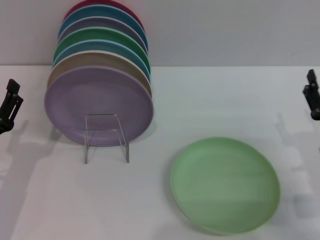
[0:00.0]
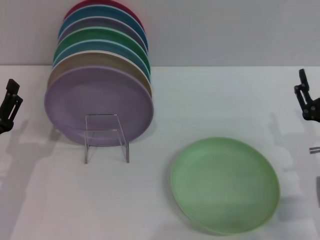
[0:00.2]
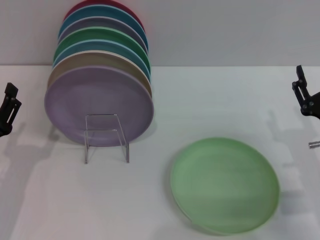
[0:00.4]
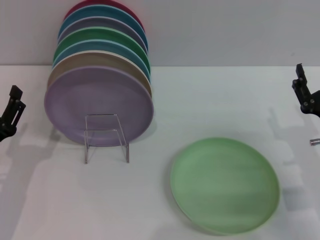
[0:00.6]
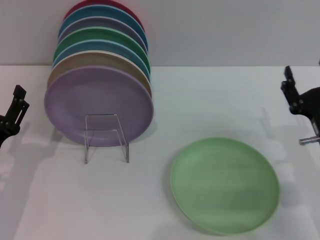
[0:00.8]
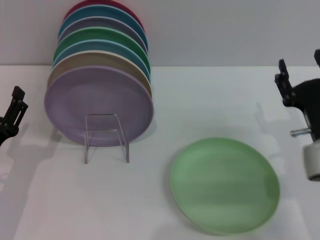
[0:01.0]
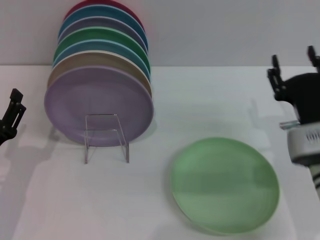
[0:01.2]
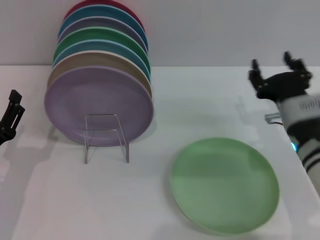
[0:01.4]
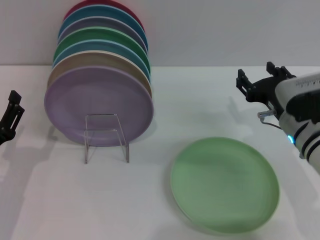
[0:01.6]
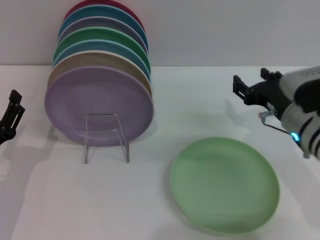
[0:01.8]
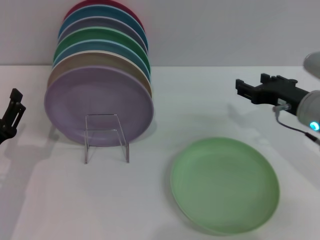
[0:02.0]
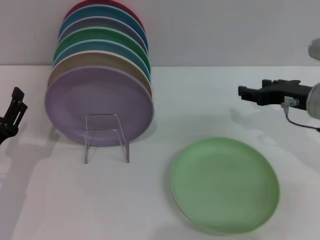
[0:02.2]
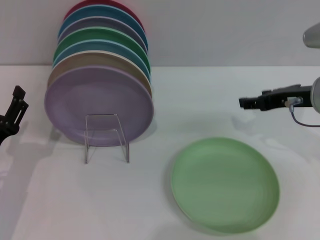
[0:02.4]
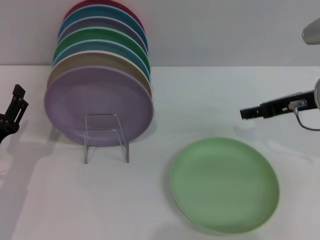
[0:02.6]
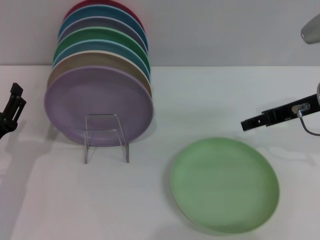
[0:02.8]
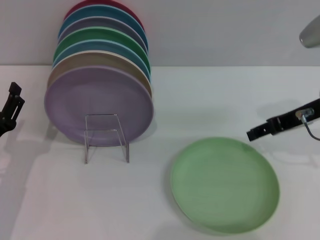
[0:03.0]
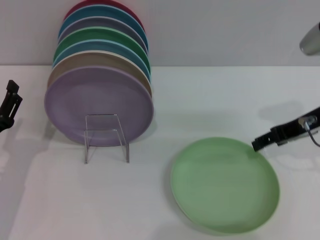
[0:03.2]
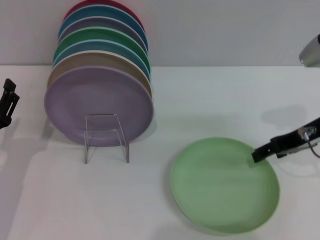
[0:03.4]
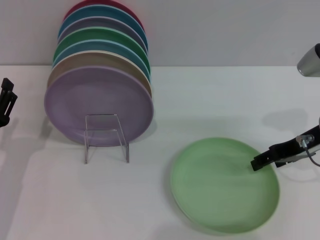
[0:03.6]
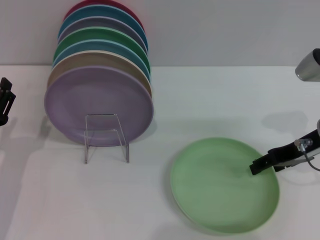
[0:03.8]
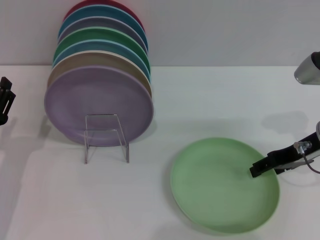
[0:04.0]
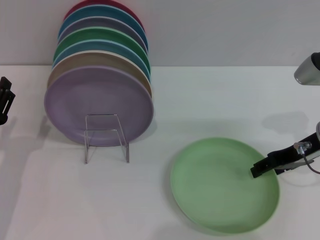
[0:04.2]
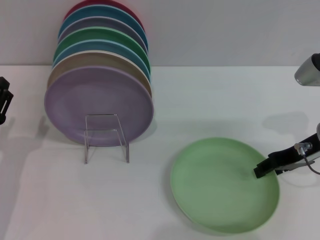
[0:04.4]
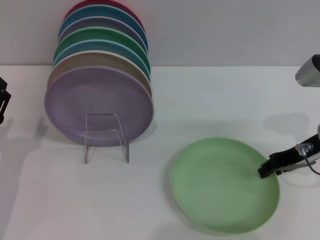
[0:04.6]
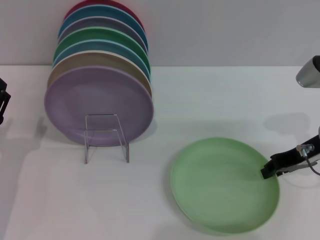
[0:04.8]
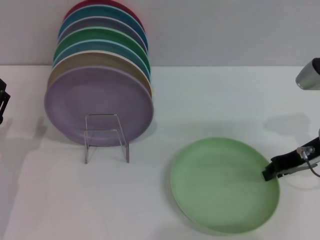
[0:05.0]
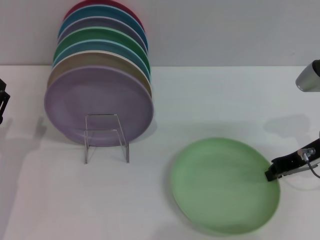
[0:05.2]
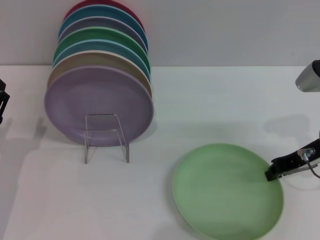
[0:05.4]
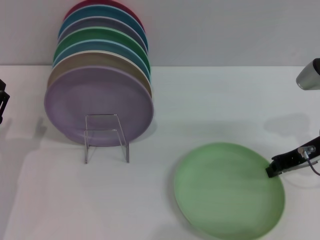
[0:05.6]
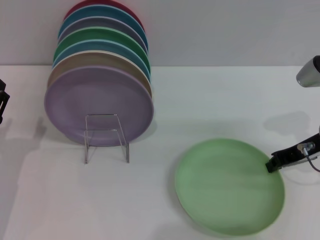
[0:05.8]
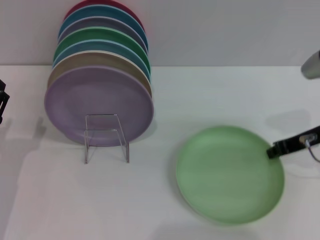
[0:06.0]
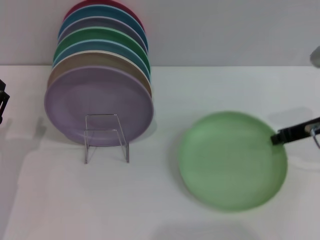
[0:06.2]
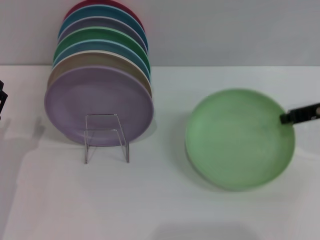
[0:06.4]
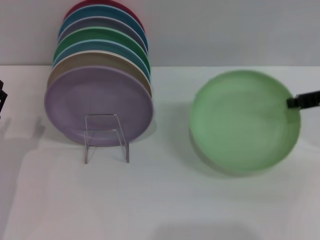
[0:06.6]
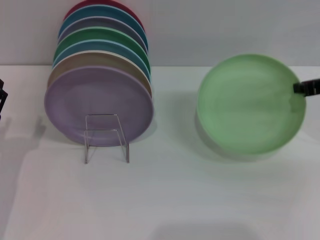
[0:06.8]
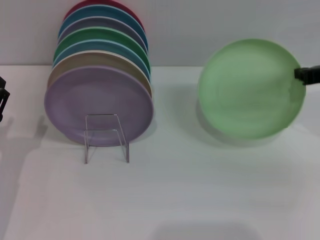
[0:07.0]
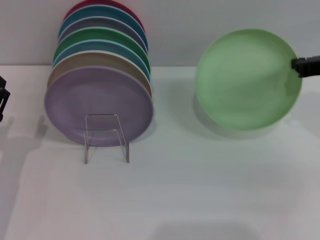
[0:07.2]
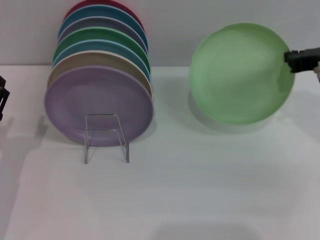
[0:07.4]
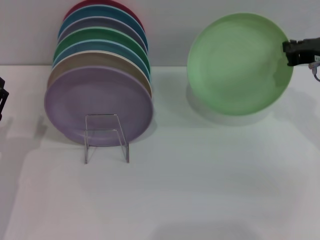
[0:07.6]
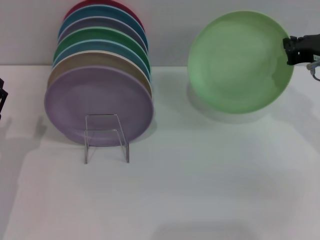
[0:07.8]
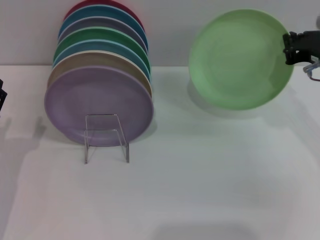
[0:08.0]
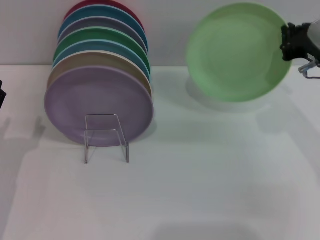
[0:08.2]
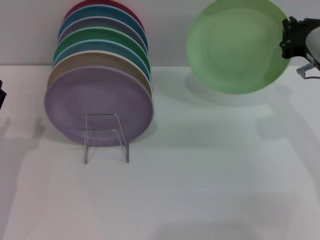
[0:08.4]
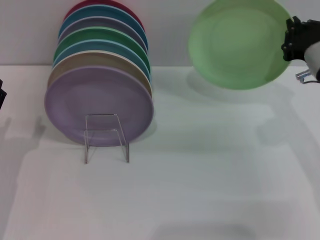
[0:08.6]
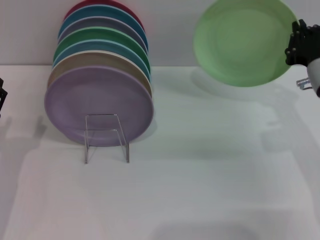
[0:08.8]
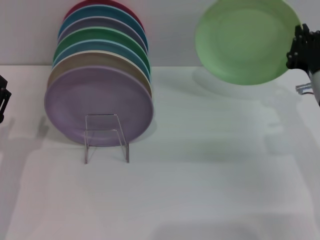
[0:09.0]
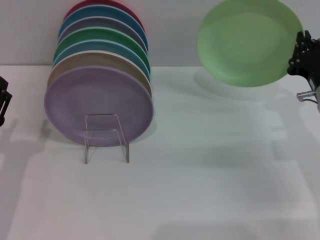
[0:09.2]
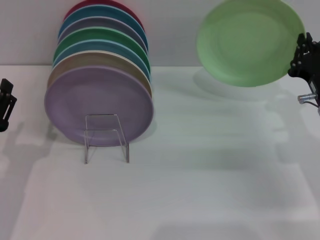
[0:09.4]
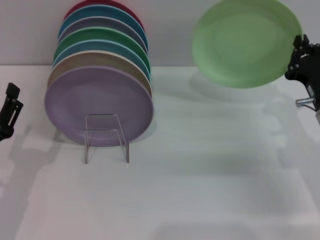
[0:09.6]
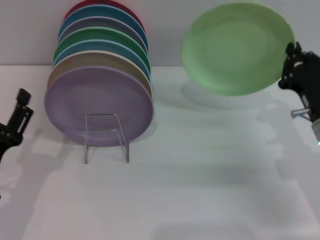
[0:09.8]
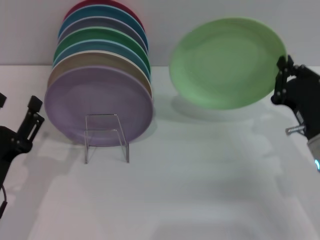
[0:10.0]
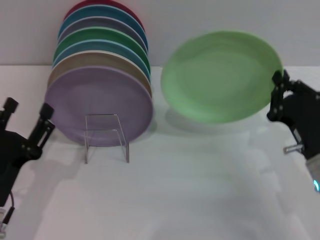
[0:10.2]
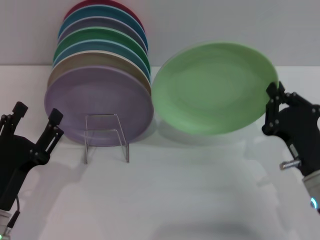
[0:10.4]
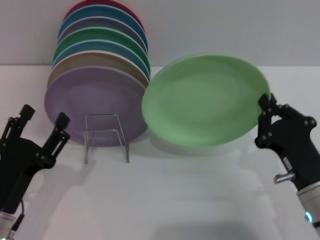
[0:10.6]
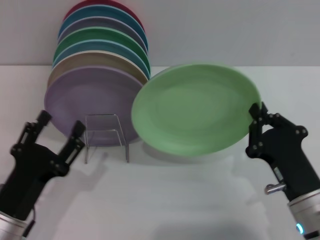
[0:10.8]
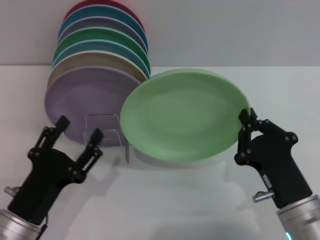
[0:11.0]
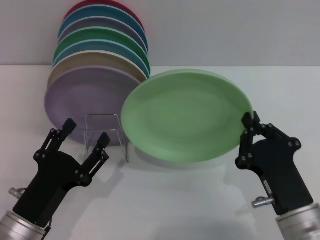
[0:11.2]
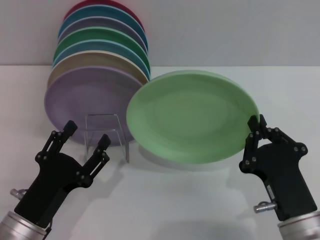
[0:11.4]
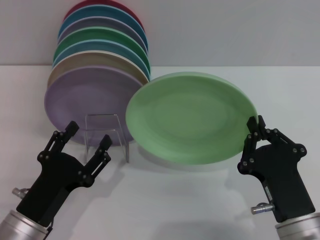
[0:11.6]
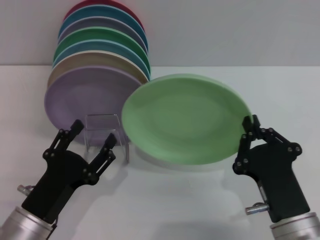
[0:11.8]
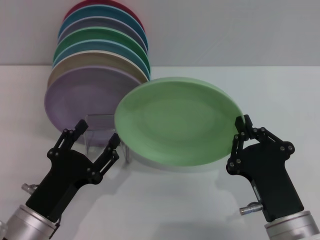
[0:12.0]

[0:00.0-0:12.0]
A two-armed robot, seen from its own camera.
Task of the whole recording: Grip the plate with one hand, pass it to the other, then set it on the shelf.
Step, 0:00.0 to 0:07.2: Pick up the plate with the right gripper.
0:00.0 to 0:01.6: The right gripper shifts some 10 cm forward and to the left.
0:01.6 to 0:03.0: The right gripper heads upward, covering roughly 10 cm.
0:03.0 to 0:04.4: There are only small adjustments of the grippers.
0:04.4 to 0:06.0: The right gripper closes its fingers.
0:06.0 to 0:07.6: The right gripper moves some 5 cm.
0:07.6 to 0:09.0: The right gripper travels downward by approximately 10 cm.
0:09.0 to 0:10.4: The left gripper is displaced backward by approximately 5 cm. Meanwhile the right gripper is displaced backward and downward by about 10 cm.
0:10.4 to 0:12.0: The right gripper moves to the left and backward, about 10 cm.

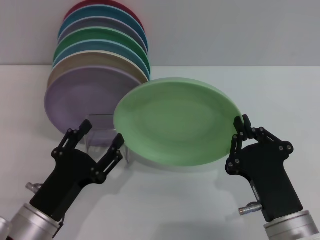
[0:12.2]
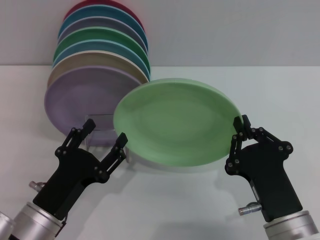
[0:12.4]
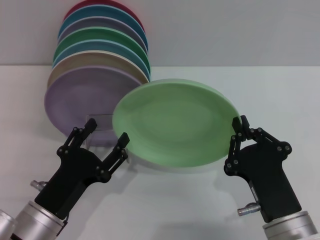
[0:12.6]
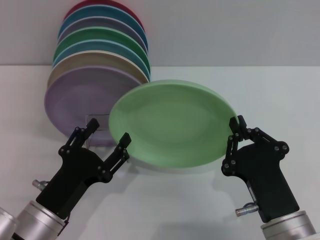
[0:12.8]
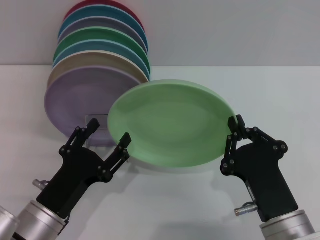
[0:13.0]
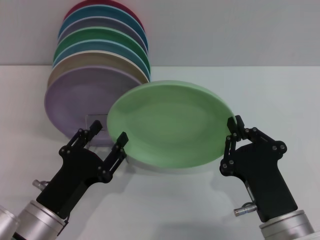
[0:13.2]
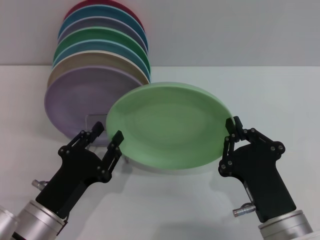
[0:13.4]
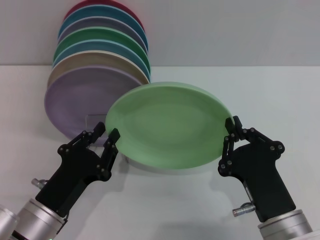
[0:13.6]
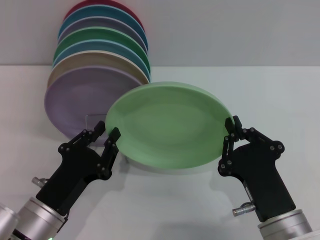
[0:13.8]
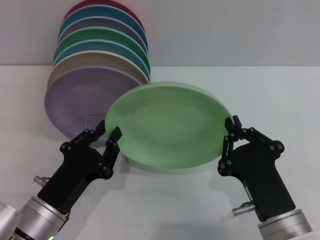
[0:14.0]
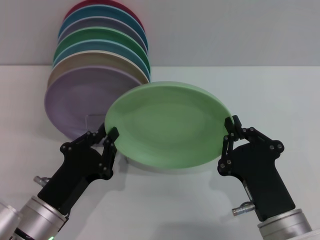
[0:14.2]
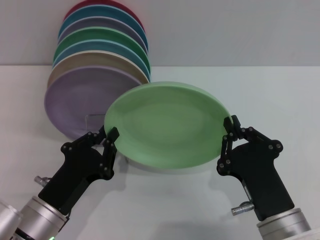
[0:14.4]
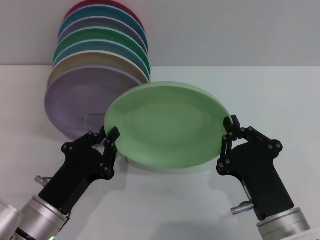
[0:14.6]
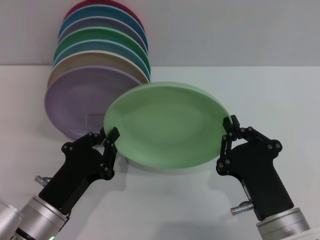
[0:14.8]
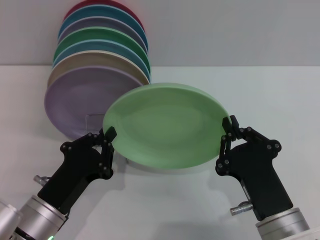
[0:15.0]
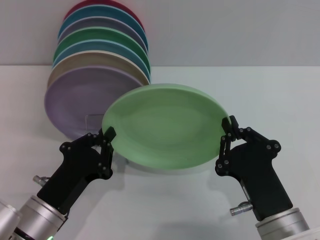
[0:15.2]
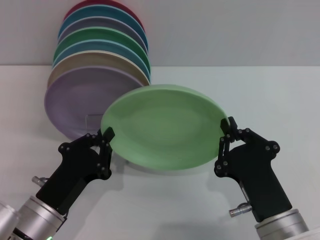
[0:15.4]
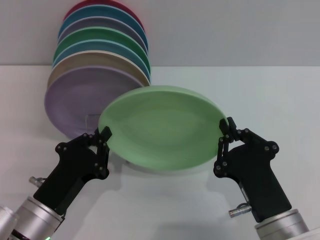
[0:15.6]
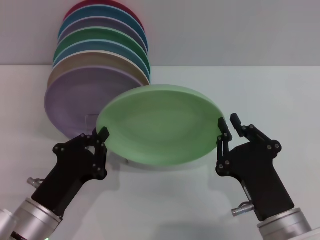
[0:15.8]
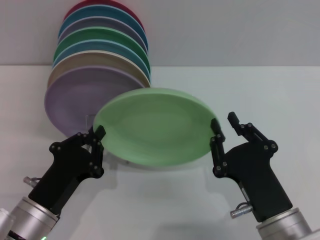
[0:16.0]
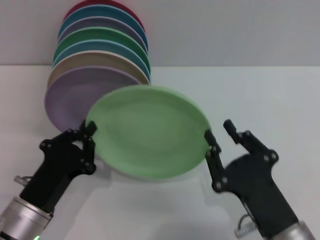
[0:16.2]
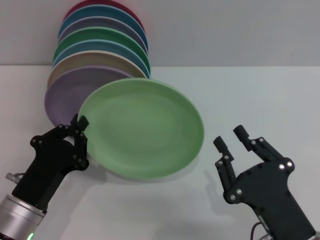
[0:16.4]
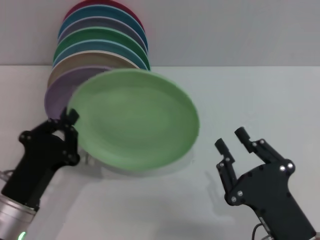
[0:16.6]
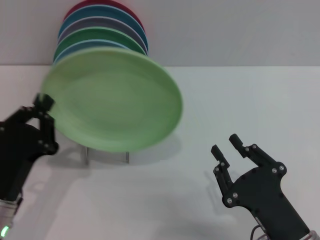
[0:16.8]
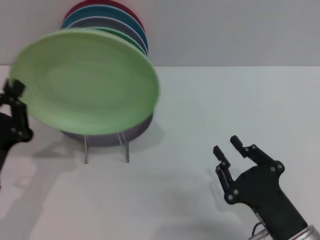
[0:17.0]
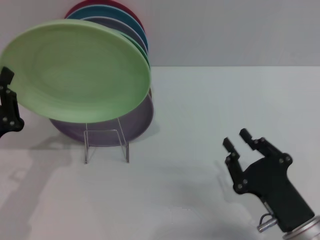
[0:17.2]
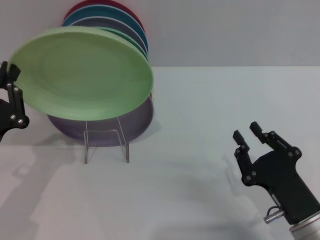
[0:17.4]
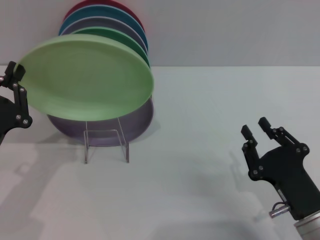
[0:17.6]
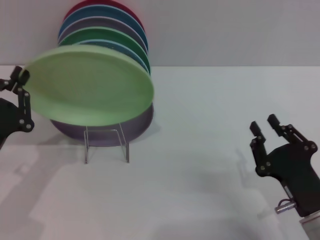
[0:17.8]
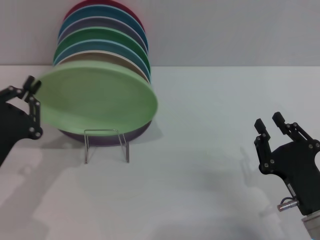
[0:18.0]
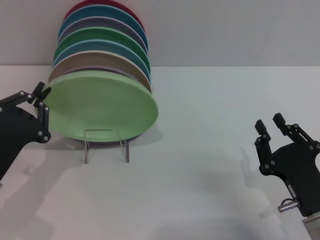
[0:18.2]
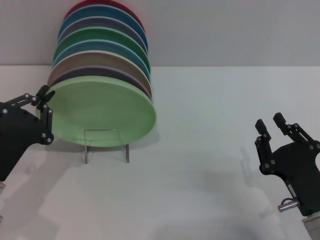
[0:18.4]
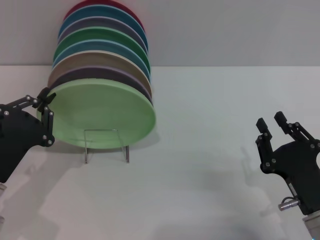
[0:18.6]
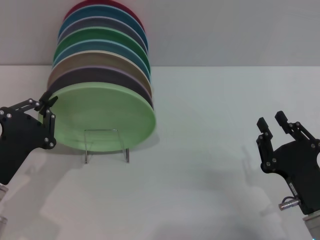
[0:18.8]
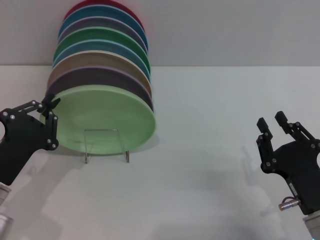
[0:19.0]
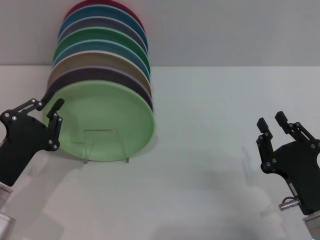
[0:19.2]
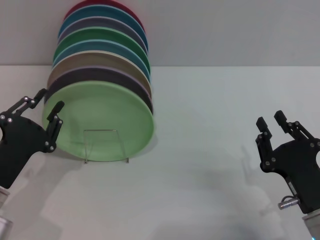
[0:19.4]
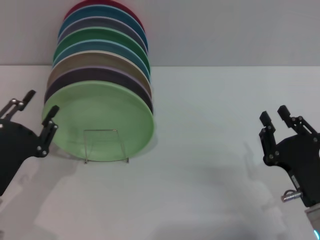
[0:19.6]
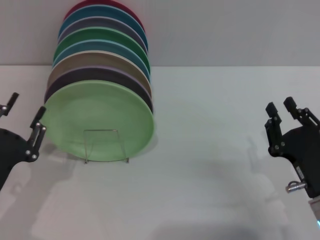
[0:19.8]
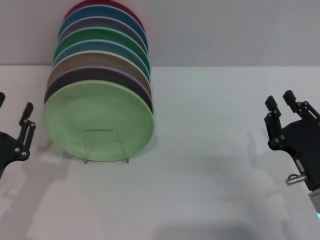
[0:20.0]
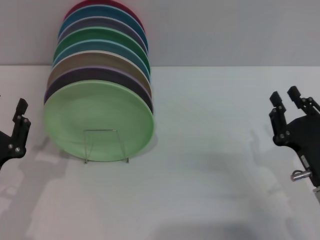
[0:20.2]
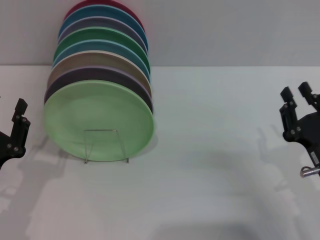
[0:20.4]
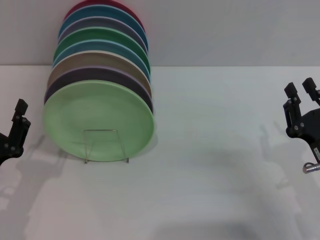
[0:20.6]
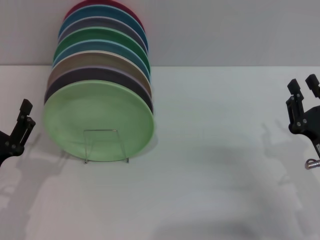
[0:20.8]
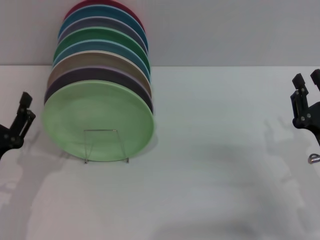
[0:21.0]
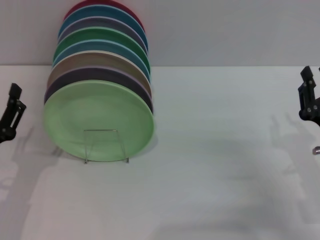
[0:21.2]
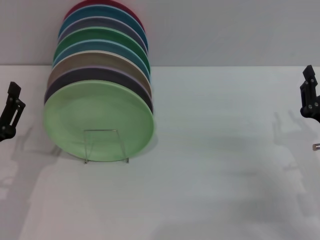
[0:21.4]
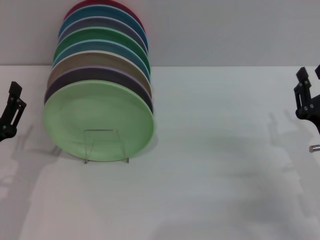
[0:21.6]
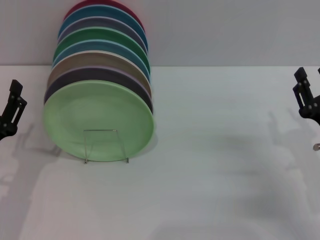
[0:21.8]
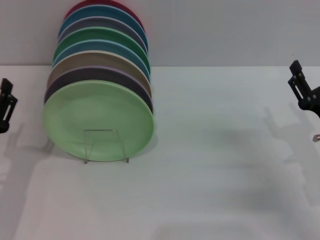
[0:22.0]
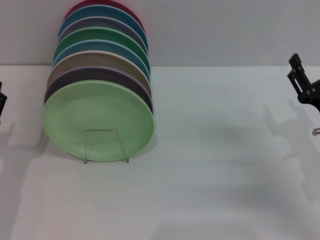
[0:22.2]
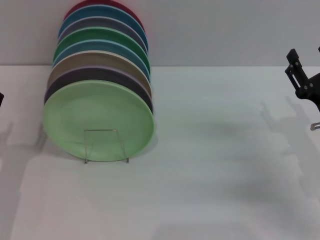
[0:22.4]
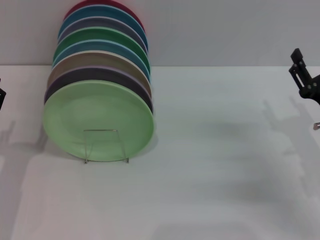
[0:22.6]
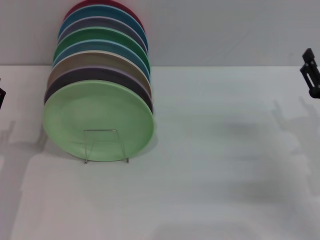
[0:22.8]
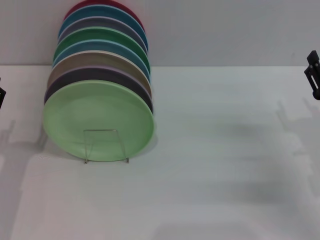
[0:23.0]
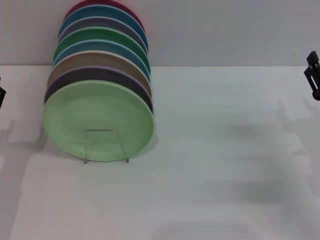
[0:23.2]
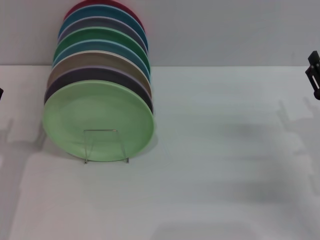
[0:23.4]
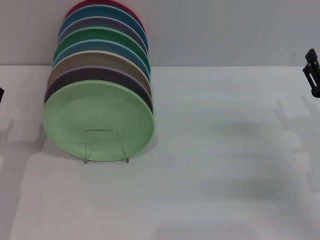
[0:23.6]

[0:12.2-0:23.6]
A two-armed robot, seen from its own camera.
Task of the whole recording: Grip the plate with one hand, pass it to the other, then set it on the shelf.
Step, 0:12.2 to 0:16.2: Pass the plate from the right gripper to the left gripper.
Step, 0:16.6 to 0:19.6: Place the plate on the shelf with the left gripper.
0:12.2 to 0:13.6: The left gripper closes up.
0:13.6 to 0:15.0: The left gripper closes up.
0:15.0 to 0:16.4: The right gripper opens.
0:16.4 to 0:17.8: The left gripper travels to the left by about 5 cm. Meanwhile the right gripper shifts by approximately 5 cm.
0:17.8 to 0:19.4: The grippers stay close to where they were, moving slightly.
0:19.4 to 0:20.8: The right gripper ends up some 5 cm from where it was; the left gripper opens.
0:20.8 to 0:22.2: The right gripper shifts by approximately 5 cm, and opens.
0:22.2 to 0:23.6: There are only small adjustments of the grippers.
